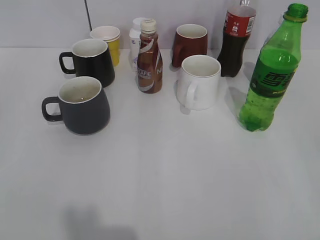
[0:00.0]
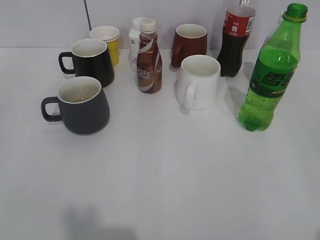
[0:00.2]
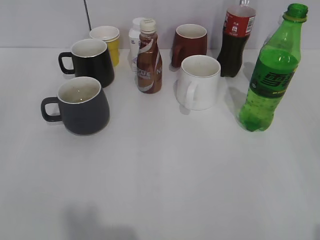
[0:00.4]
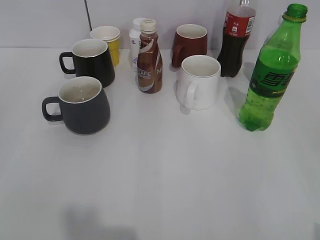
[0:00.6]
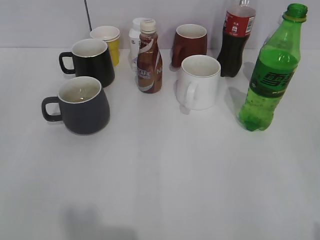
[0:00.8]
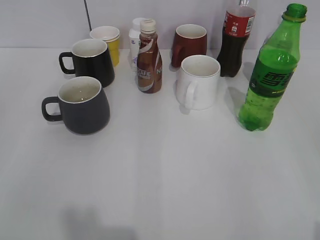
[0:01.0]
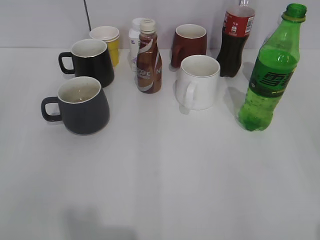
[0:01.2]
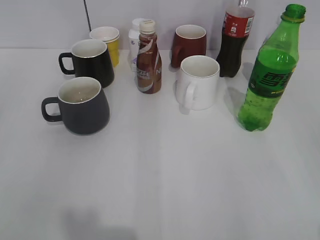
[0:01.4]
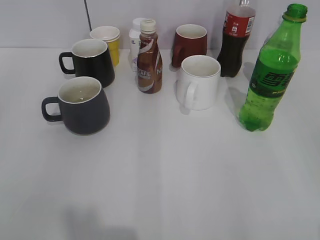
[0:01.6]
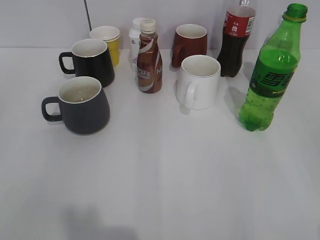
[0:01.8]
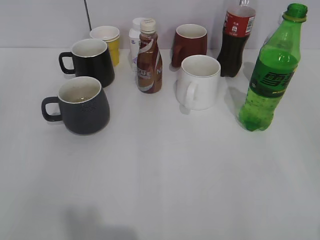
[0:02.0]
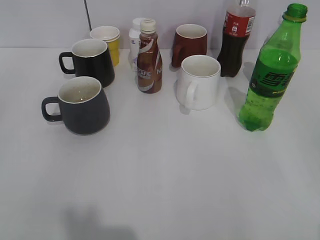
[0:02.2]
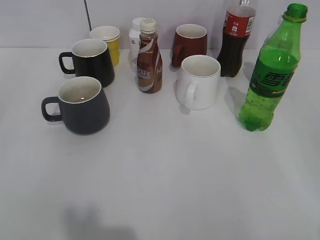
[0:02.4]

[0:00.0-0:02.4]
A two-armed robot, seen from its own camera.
0:00.0 to 0:01.2: The grippers move only a little.

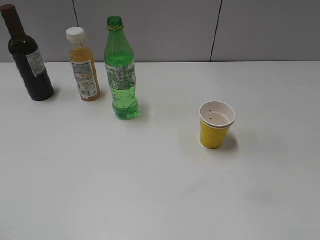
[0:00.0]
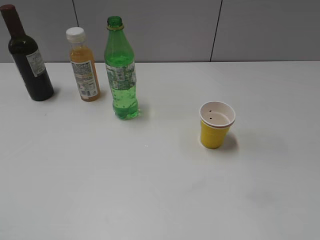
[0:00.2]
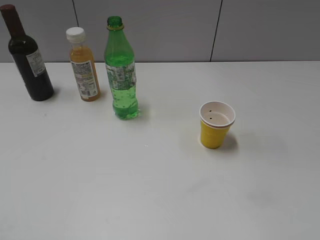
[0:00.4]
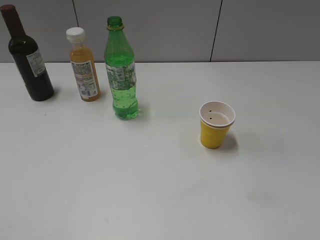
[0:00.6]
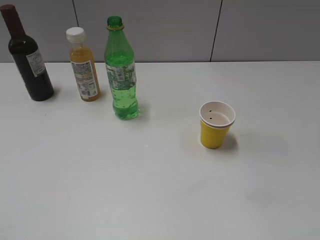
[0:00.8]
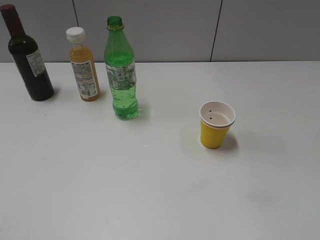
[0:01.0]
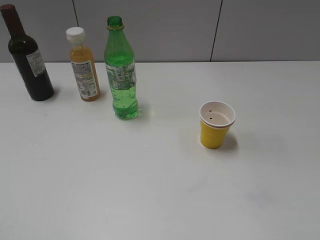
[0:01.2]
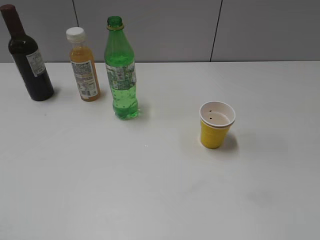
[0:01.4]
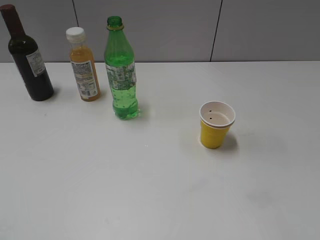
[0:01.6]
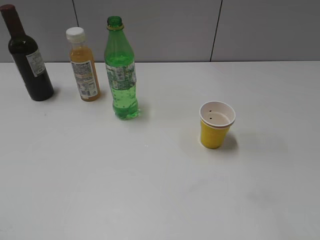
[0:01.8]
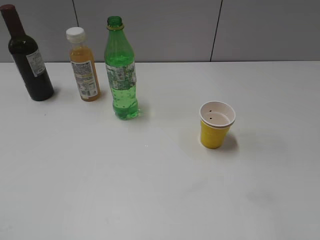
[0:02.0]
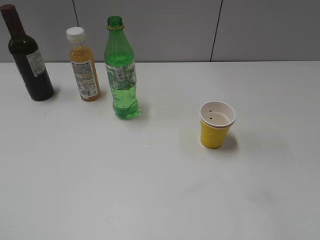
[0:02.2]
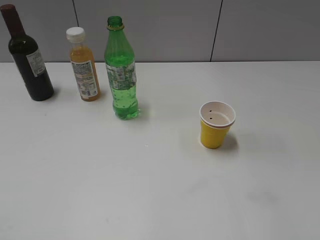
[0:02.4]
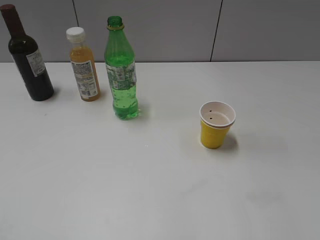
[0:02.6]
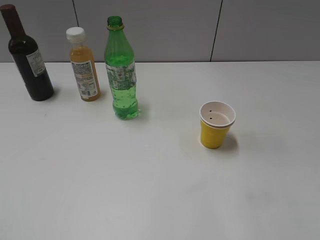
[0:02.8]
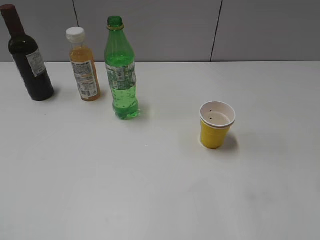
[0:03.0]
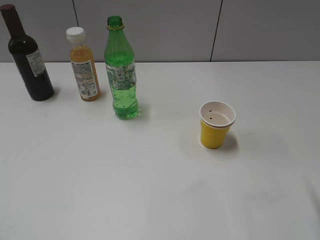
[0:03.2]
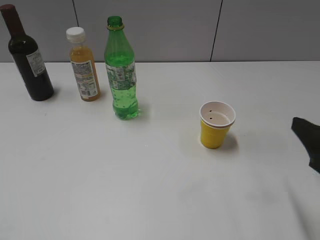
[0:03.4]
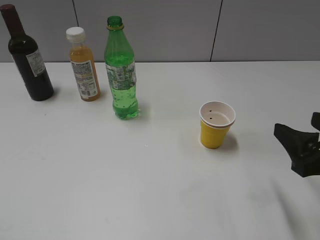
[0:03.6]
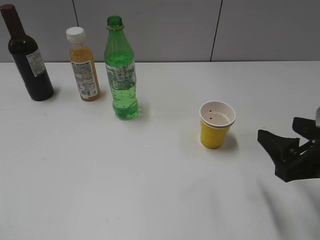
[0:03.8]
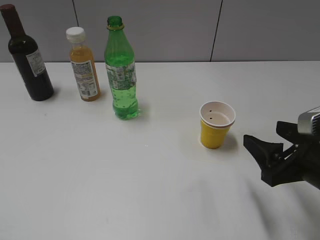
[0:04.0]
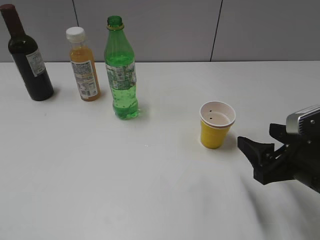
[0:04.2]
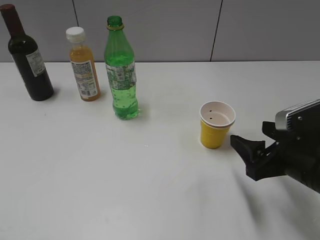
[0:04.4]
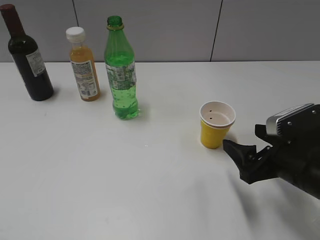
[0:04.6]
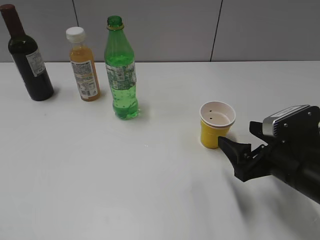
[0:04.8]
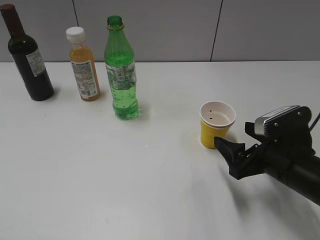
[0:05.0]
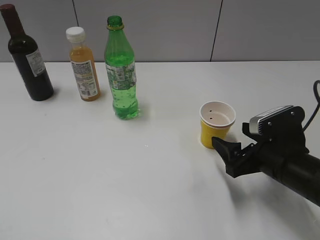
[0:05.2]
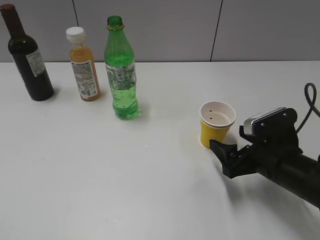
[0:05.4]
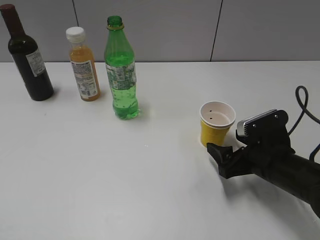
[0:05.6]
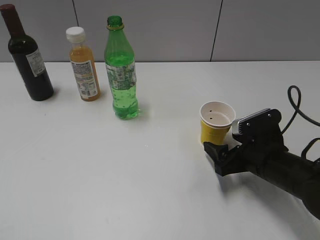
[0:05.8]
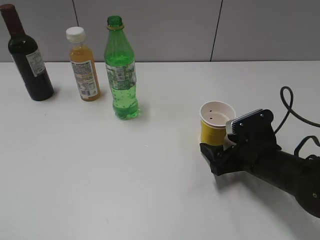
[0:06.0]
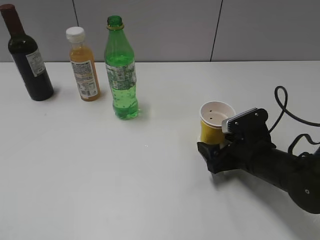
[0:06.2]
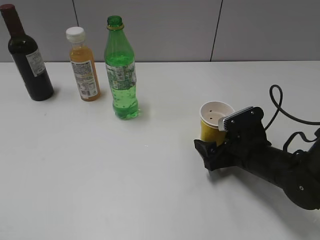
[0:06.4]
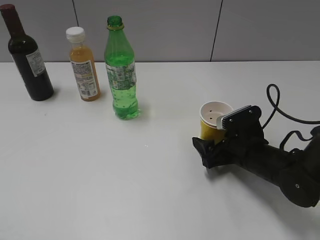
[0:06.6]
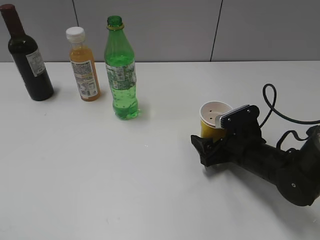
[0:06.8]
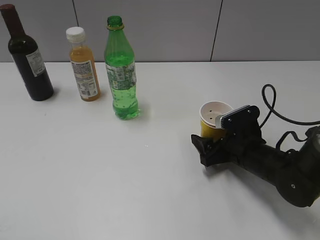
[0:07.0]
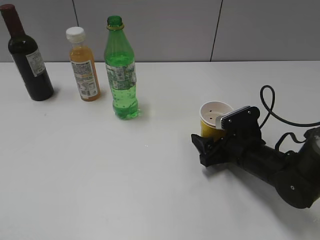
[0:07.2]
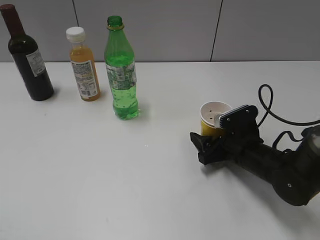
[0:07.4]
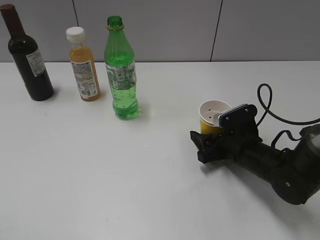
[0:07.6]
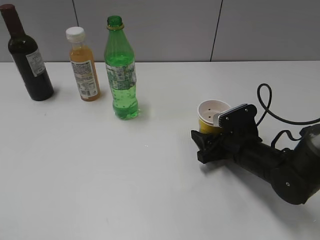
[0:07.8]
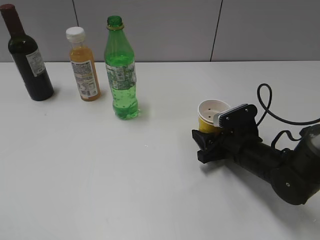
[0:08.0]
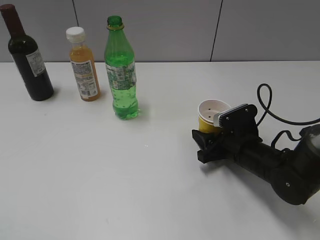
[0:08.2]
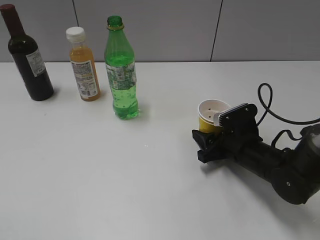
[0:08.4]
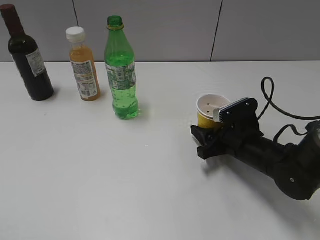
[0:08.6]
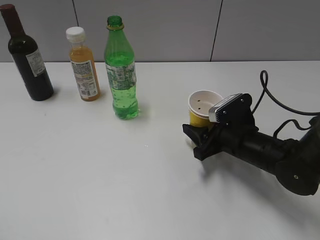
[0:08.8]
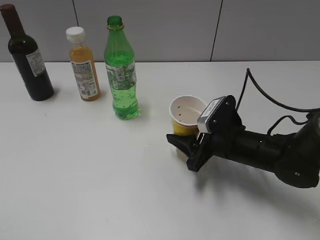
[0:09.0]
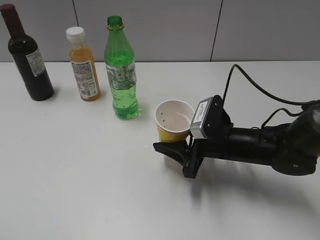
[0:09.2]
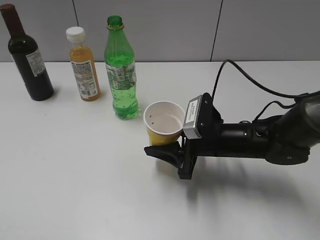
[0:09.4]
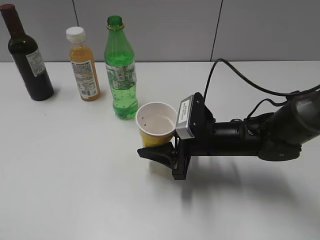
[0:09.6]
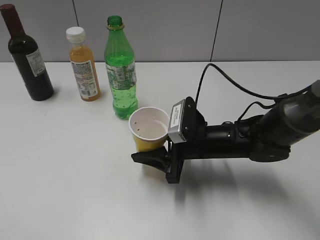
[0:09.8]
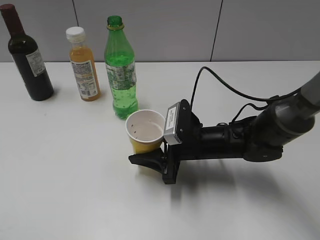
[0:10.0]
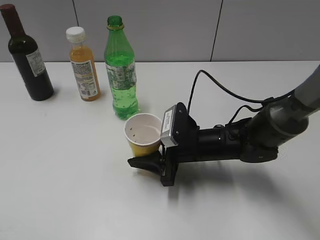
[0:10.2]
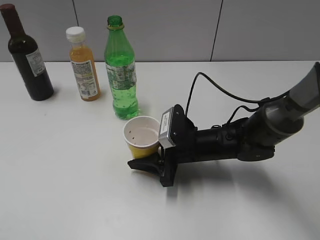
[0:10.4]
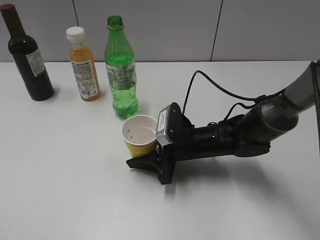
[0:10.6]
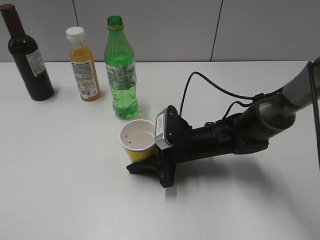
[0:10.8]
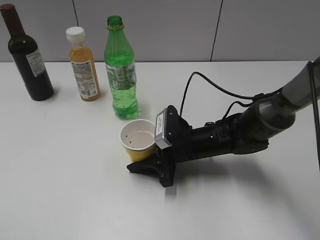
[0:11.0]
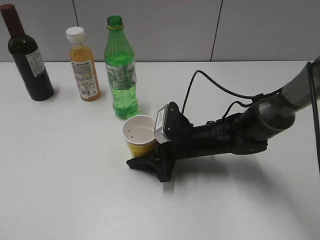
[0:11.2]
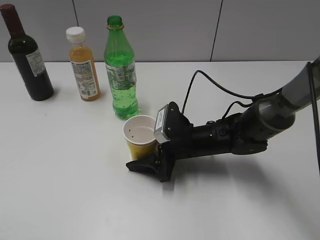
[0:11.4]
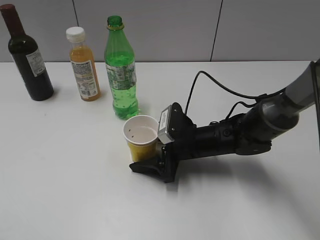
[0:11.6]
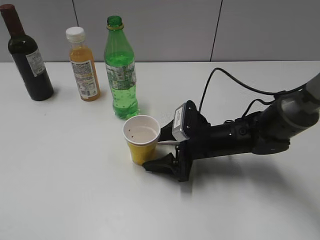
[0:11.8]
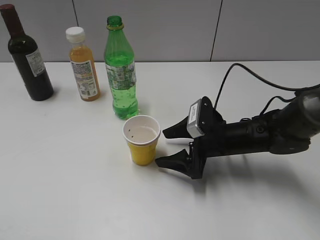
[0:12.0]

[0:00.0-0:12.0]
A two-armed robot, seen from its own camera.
Step, 0:01.0 to 0:08.2: Grasp the yellow paper cup with right gripper.
Step, 0:08.6 to 0:11.8: Place the yellow paper cup on the table with right gripper.
0:03.0 to 0:04.4: The right gripper shifts roughly 15 cm downward, to the left and forward.
0:04.4 to 0:06.0: The right gripper goes approximately 10 cm downward and forward.
0:06.0 to 0:07.6: The right gripper closes.
0:07.6 to 0:09.0: The right gripper closes up.
0:09.0 to 0:10.4: The right gripper shifts about 5 cm to the left.
0:10.4 to 0:12.0: The right gripper is displaced to the right by roughly 5 cm, and opens.

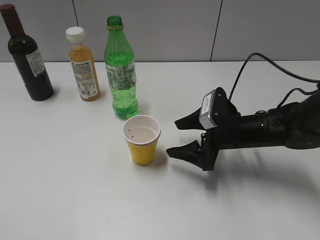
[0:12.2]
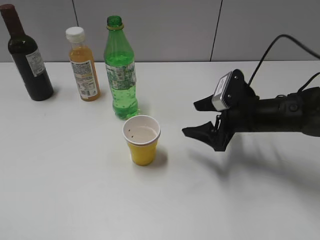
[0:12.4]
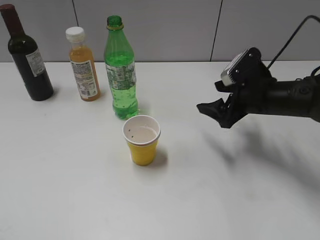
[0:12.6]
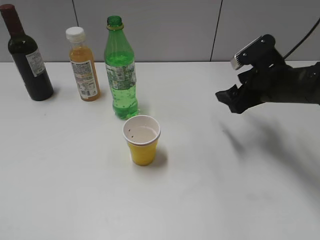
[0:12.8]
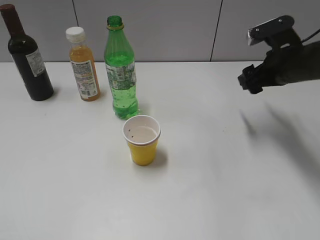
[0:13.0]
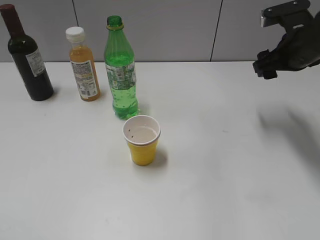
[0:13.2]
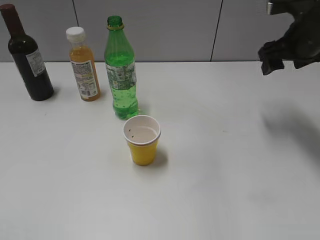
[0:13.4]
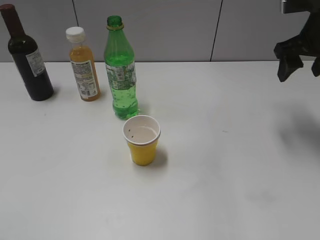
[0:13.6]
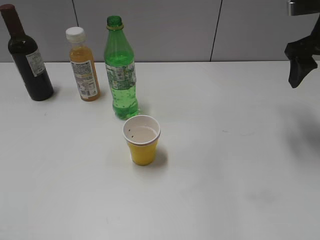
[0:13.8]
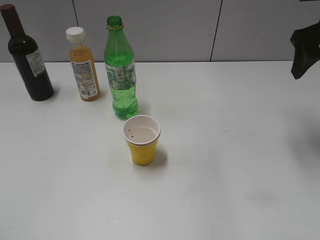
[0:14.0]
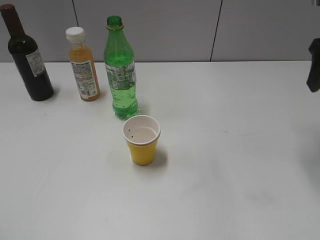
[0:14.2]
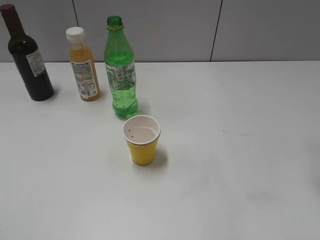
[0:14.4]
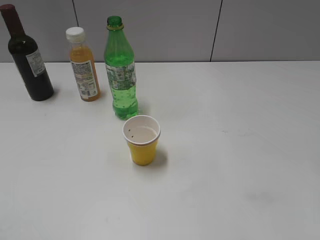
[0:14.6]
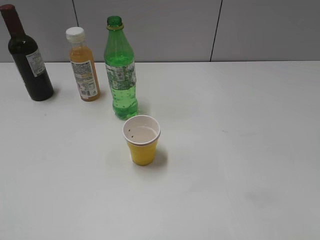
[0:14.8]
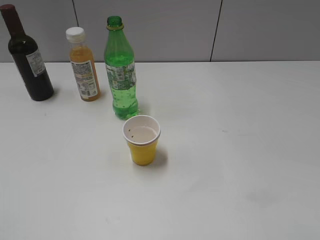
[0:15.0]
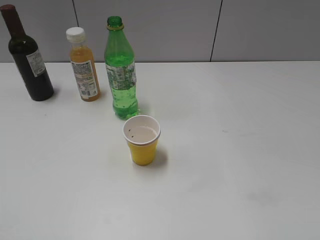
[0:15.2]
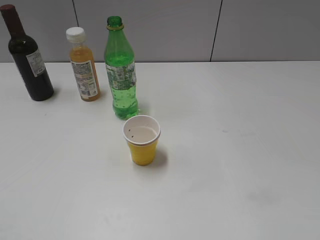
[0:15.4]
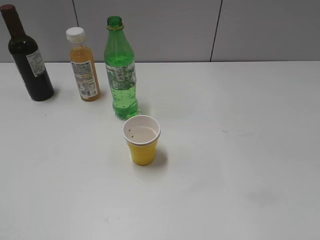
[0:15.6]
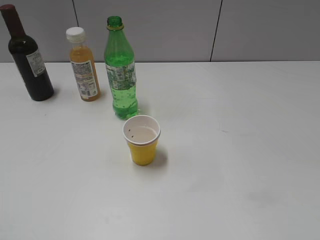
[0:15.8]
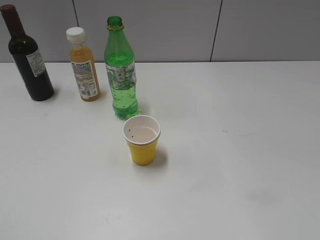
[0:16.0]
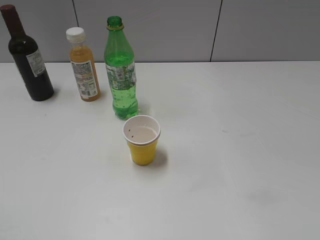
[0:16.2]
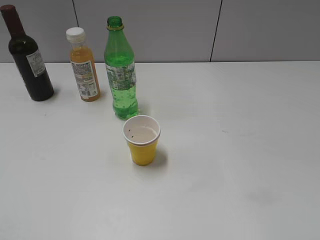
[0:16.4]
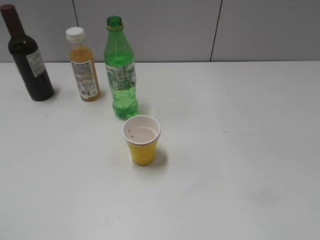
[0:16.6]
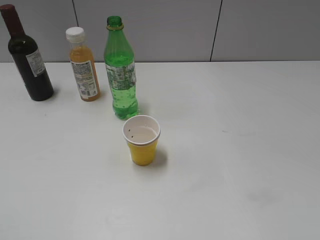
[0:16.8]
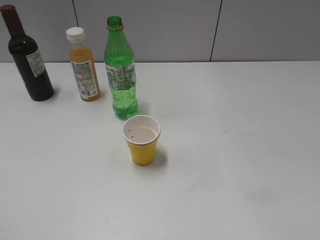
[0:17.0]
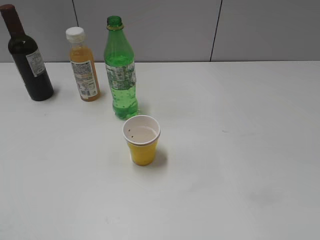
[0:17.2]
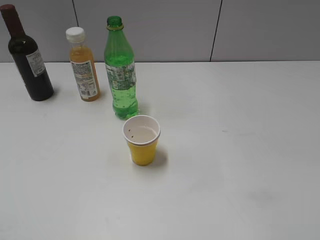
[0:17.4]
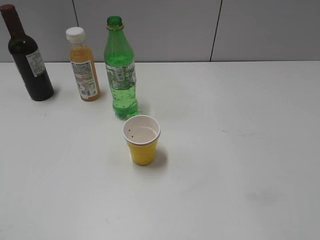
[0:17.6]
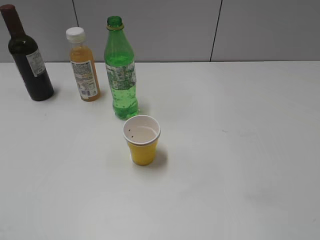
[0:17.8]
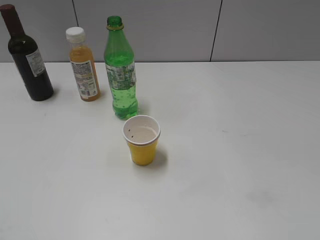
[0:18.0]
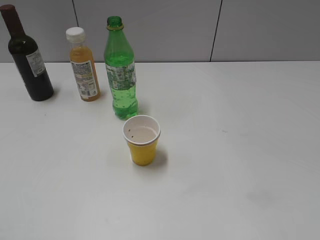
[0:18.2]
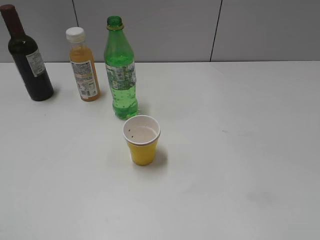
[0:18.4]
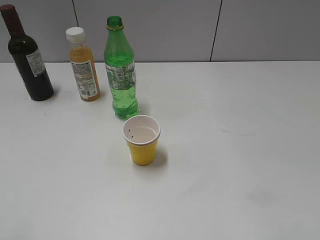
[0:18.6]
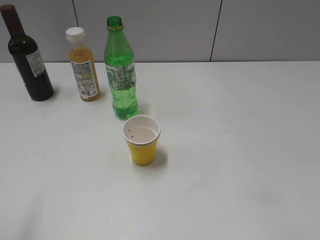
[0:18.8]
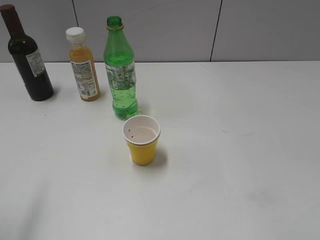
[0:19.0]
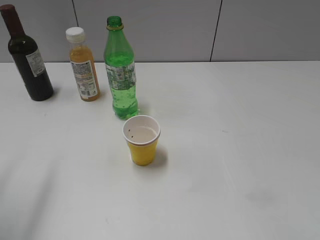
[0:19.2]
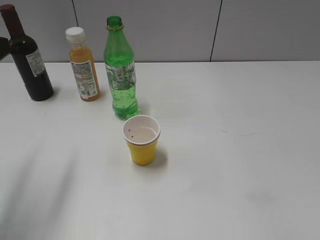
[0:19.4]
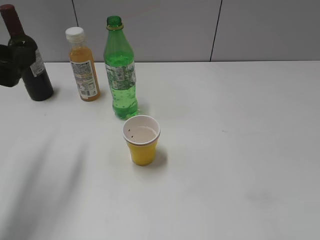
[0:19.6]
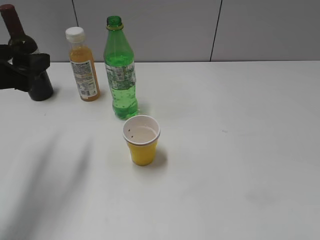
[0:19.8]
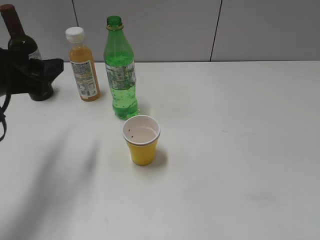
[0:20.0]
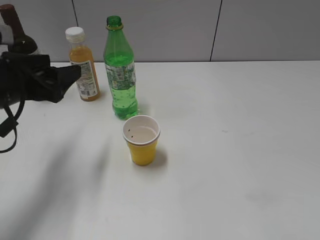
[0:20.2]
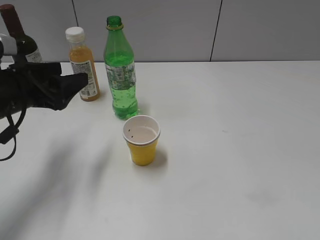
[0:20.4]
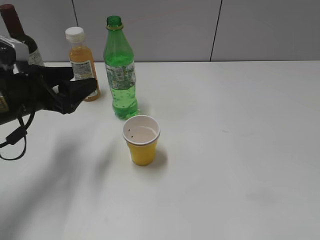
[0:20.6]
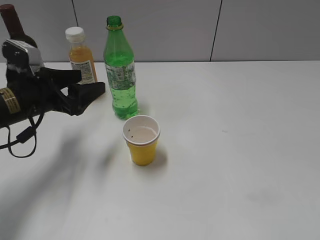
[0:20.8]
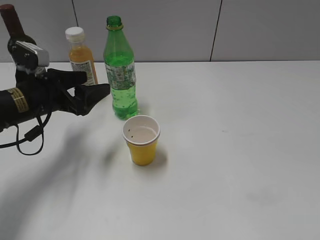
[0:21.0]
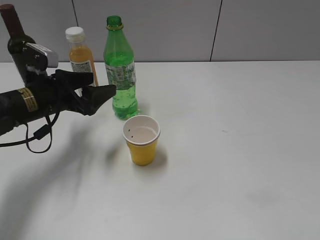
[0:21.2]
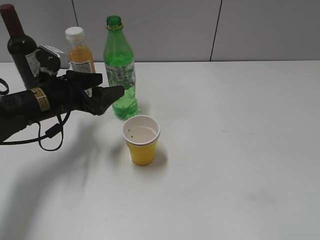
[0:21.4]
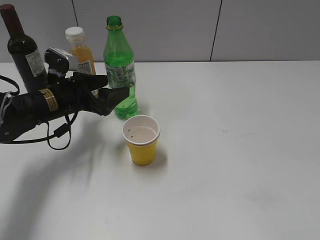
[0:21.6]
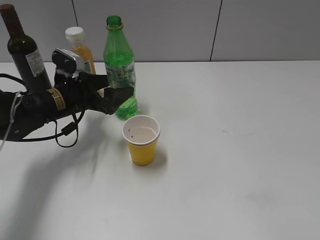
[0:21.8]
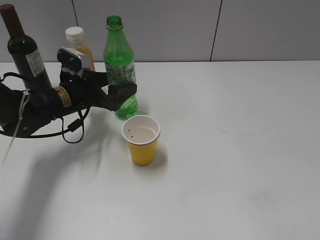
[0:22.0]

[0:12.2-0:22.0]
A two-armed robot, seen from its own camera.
0:12.2 to 0:13.6: The right gripper travels upward, to the right and forward by approximately 20 cm.
0:13.6 to 0:15.0: The right gripper moves backward, about 25 cm.
0:16.4 to 0:17.8: Both grippers stay put.
0:17.8 to 0:19.2: The left gripper goes approximately 20 cm forward.
0:19.2 to 0:20.6: The left gripper moves downward, forward and to the right, about 20 cm.
0:20.6 to 0:22.0: The left gripper is displaced forward, downward and to the right by some 10 cm.
